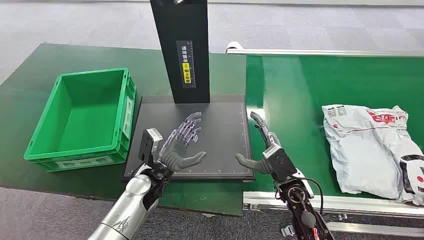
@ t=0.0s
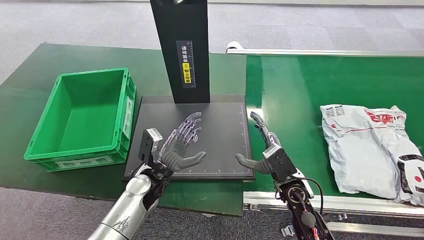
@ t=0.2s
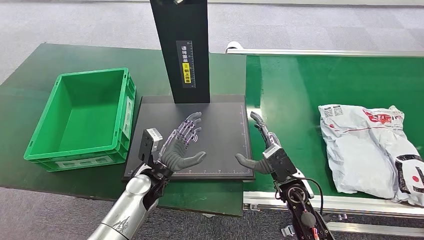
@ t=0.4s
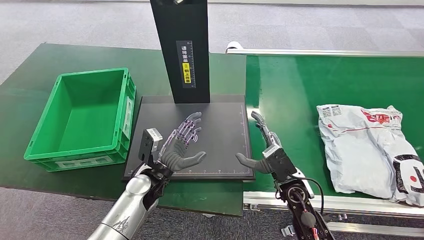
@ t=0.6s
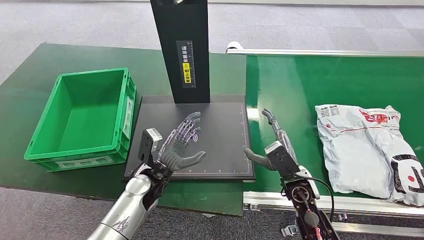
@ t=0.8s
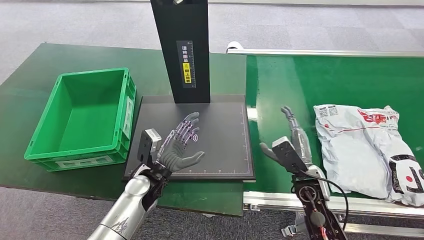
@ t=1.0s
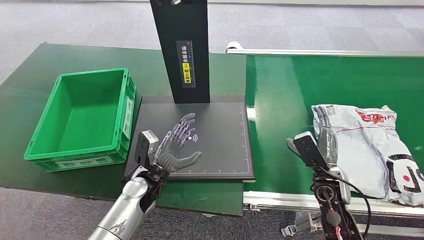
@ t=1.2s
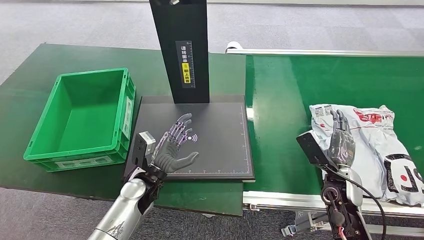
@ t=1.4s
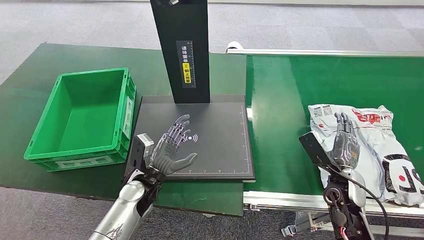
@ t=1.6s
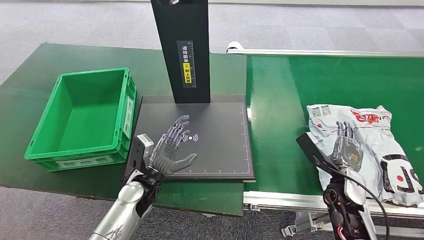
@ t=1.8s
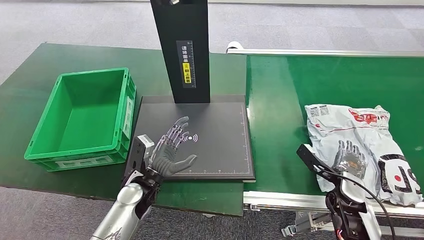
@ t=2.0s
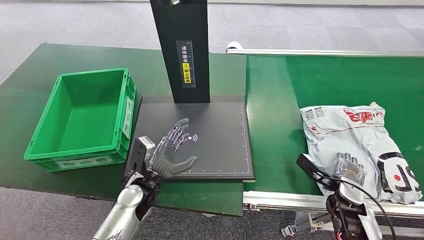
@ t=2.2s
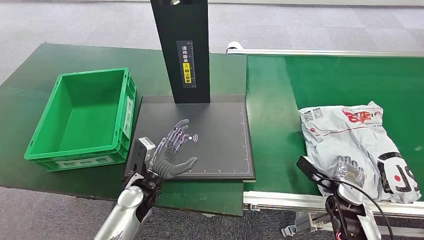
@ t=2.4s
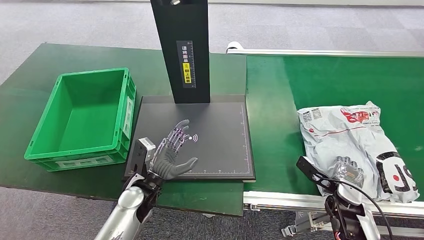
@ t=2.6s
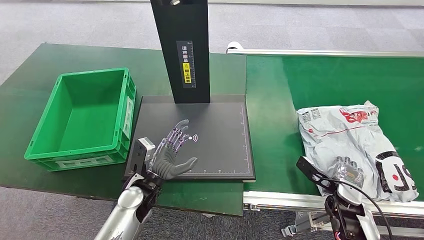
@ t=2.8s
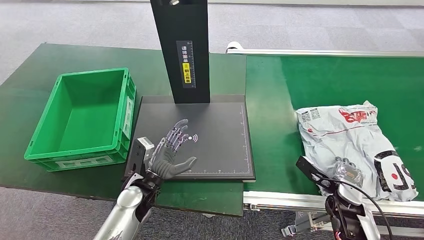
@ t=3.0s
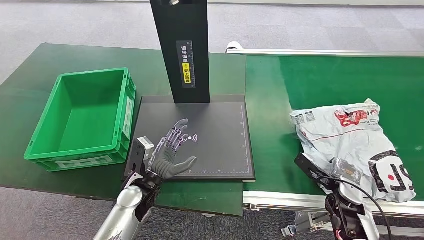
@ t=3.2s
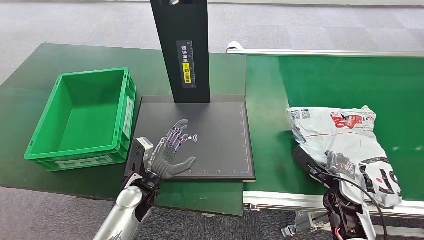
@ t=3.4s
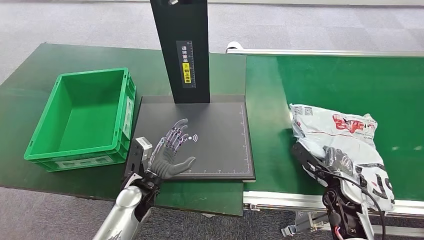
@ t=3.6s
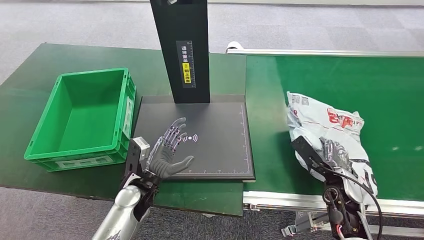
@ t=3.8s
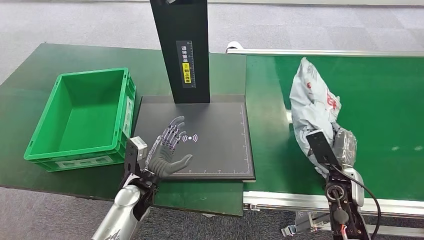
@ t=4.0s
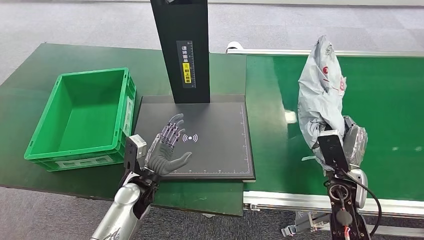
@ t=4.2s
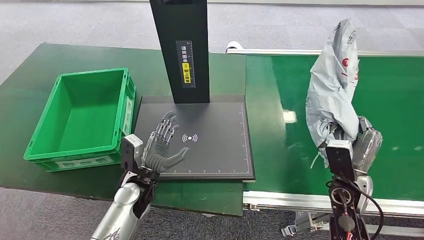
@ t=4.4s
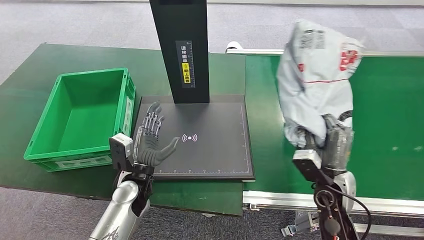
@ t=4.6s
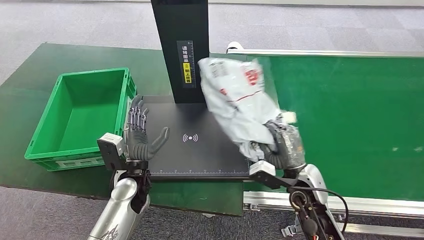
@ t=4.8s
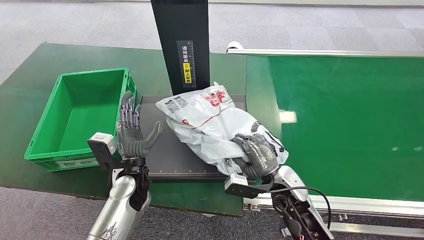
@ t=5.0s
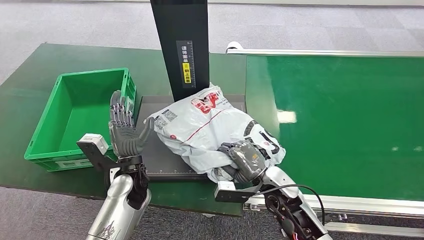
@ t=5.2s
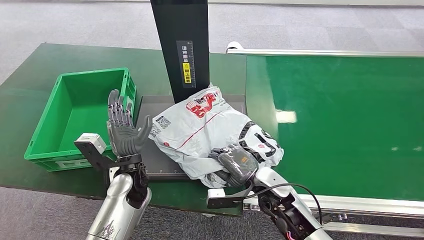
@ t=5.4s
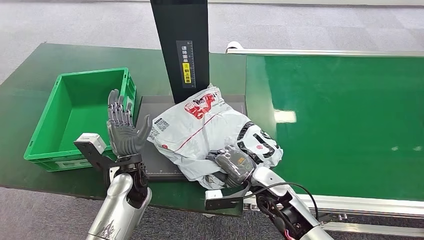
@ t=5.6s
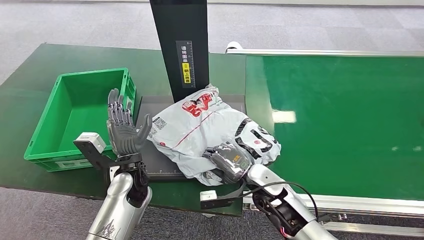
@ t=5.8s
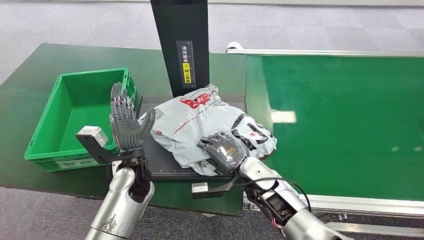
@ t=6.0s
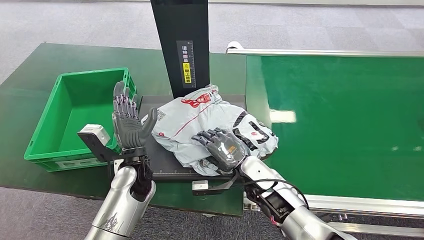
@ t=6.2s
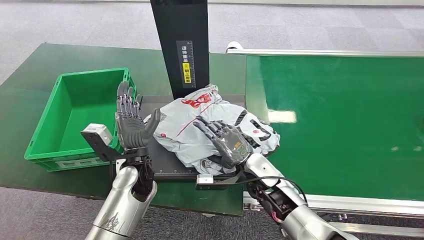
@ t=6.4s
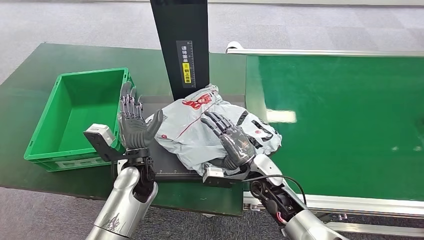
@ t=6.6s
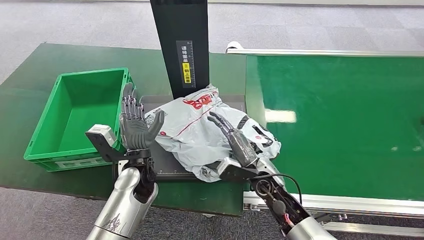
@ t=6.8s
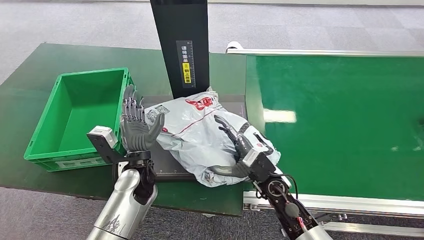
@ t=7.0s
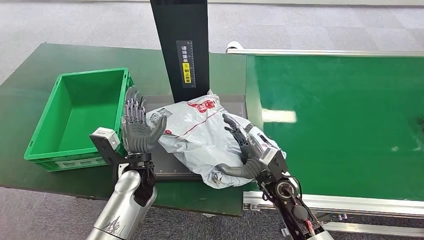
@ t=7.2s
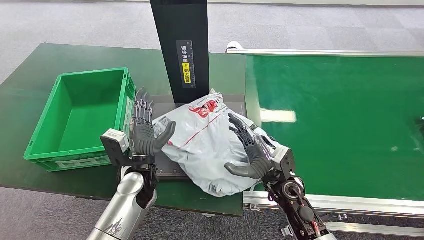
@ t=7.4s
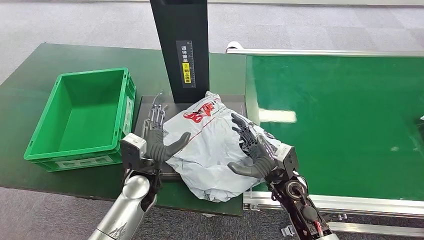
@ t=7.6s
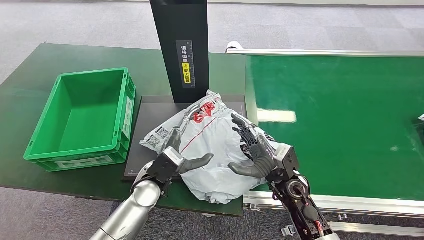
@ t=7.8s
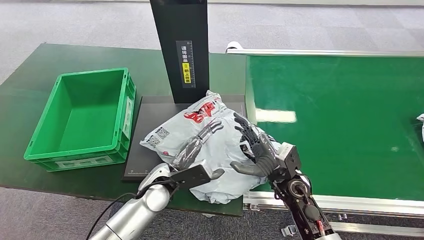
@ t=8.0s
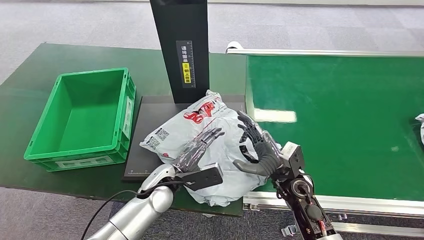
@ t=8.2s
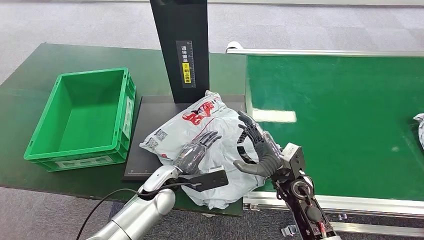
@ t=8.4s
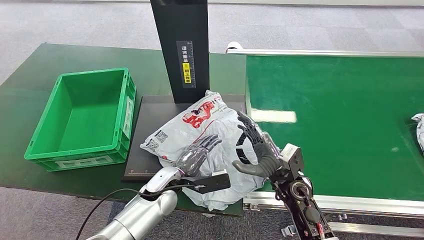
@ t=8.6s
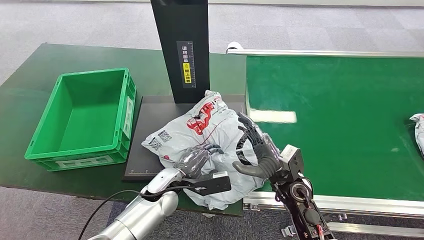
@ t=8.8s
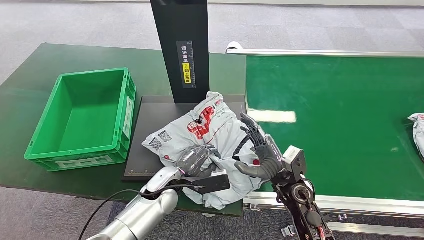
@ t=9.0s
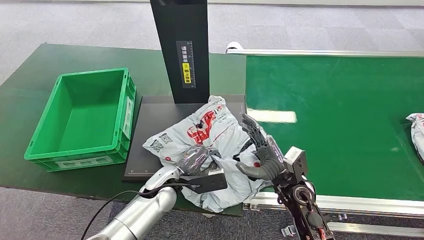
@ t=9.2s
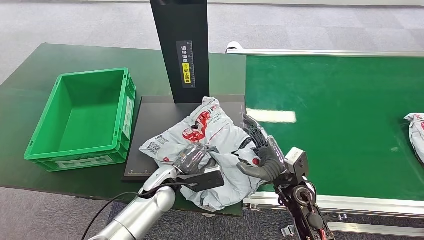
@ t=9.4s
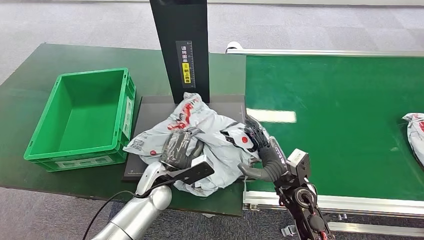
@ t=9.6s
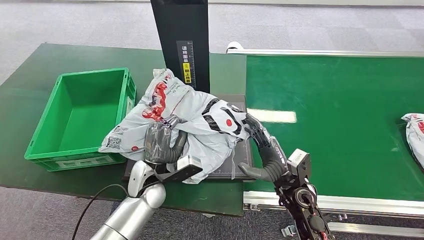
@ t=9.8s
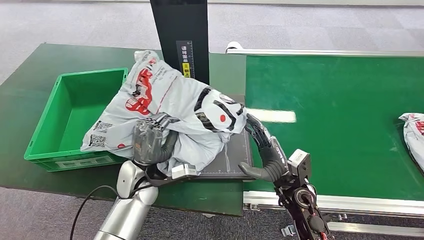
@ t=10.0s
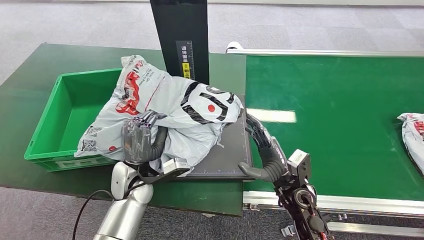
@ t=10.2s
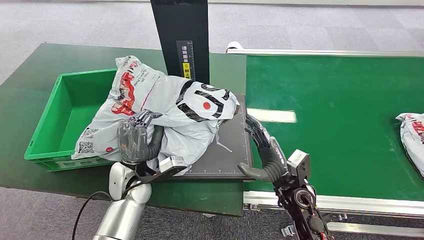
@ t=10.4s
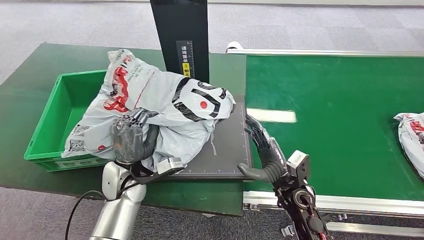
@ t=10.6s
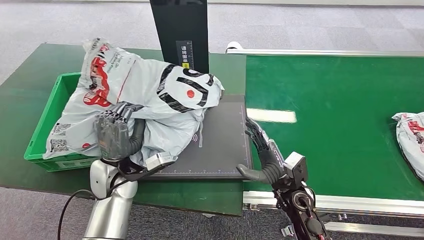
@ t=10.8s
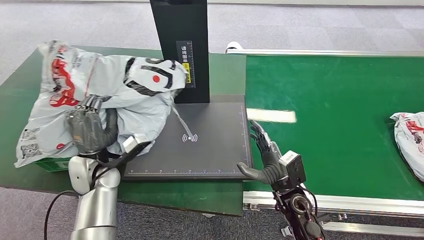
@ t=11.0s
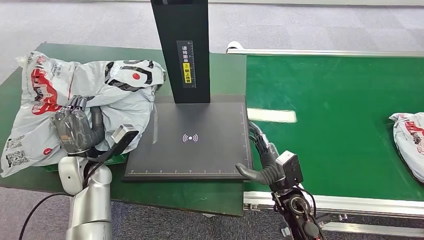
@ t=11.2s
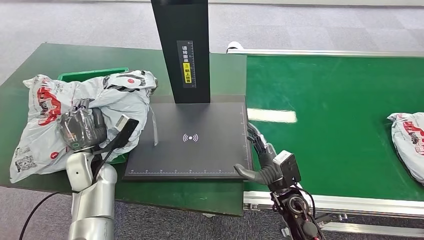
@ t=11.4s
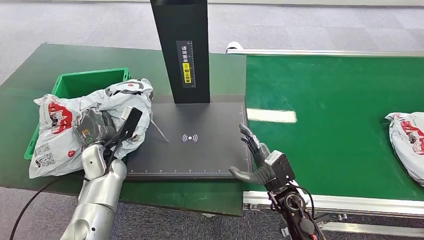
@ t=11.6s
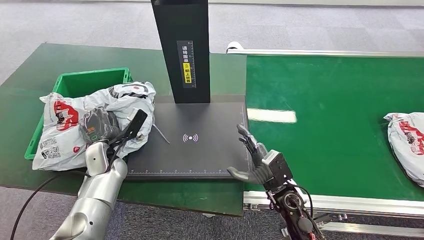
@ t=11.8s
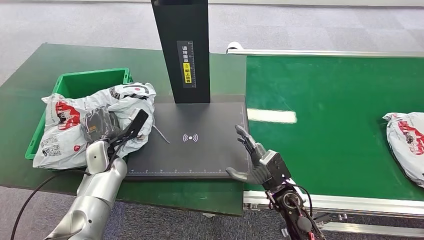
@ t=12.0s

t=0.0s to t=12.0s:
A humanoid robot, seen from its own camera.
Step, t=0.0s to t=4.6s: Pick up the package from the conveyor belt.
Step, t=4.8s to t=7.6s: Place the package onto the inbound machine.
Step, t=7.8s to t=10.8s: Pick up the package from the inbound machine.
t=1.6s to t=3.0s: The right hand ends up roughly 5 cm from where it was.
t=3.0s to t=4.4s: The right hand goes approximately 5 cm upward.
t=6.0s to t=7.6s: The right hand heads to the right, covering approximately 5 cm.
t=7.6s to t=9.0s: The left hand changes place by some 5 cm.

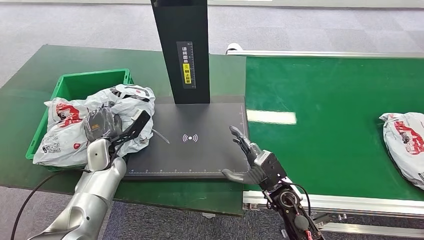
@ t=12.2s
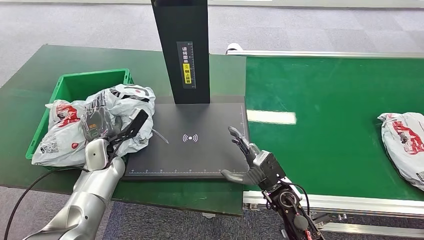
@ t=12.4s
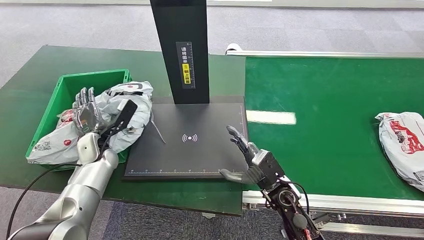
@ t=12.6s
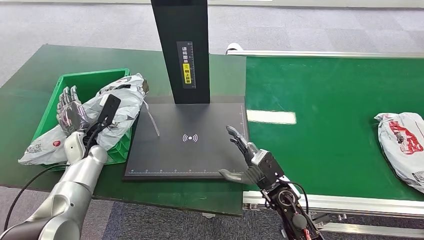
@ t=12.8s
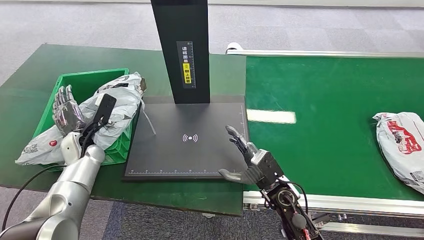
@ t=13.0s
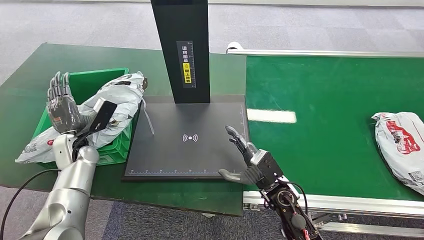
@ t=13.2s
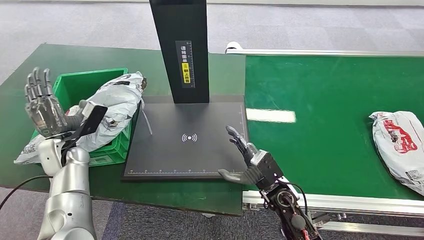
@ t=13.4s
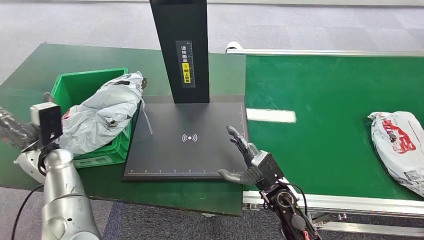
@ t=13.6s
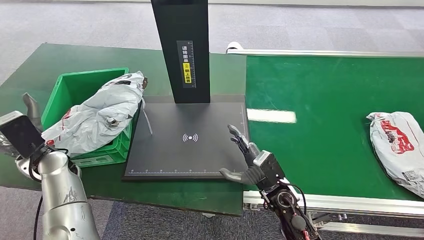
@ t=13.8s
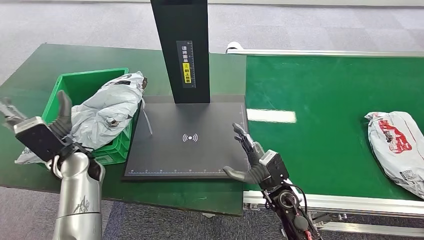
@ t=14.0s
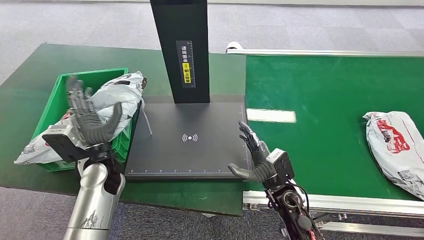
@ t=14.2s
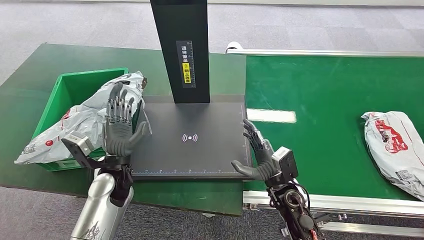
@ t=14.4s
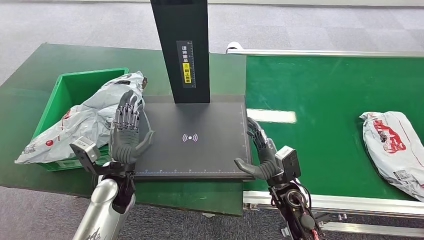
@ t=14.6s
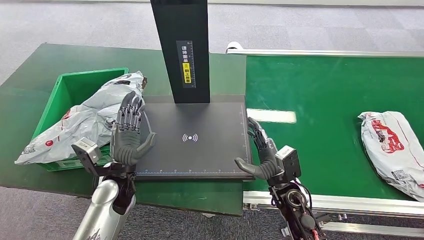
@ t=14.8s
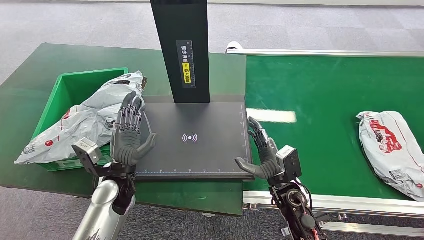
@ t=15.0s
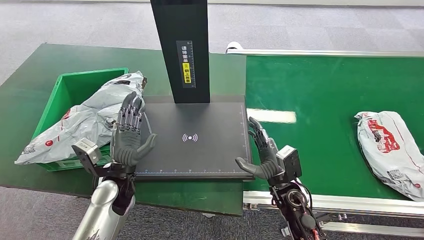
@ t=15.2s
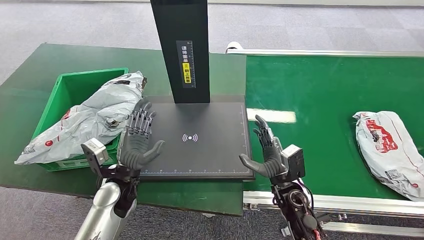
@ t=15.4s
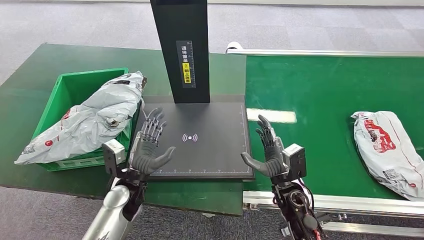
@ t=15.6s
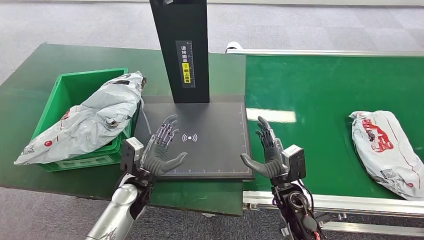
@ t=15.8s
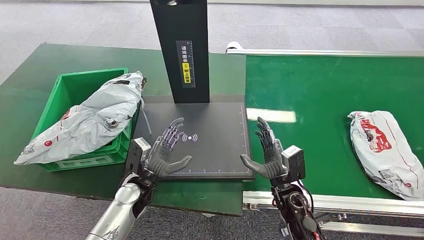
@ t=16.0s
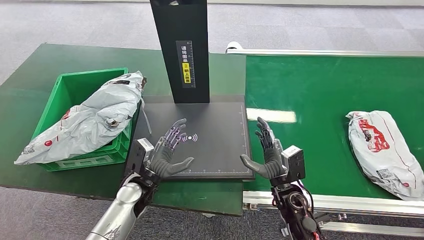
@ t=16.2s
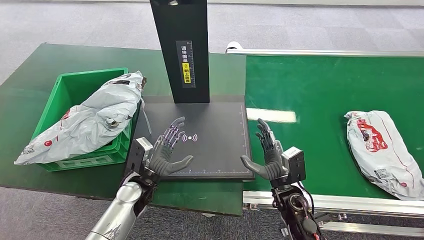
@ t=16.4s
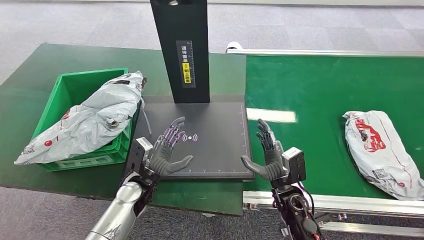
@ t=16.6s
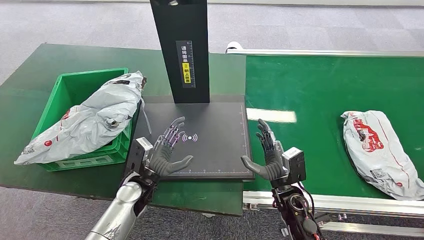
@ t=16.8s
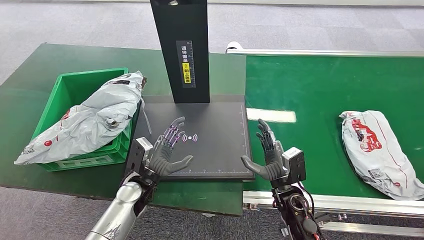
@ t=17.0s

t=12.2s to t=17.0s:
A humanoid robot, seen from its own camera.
Step, t=12.2s to t=17.0s: Place the package into the parcel locker.
t=13.8s to t=15.4s: The left hand is displaced to the right and downward by about 15 cm.
t=15.4s to t=17.0s: The left hand changes place by roughly 5 cm.
